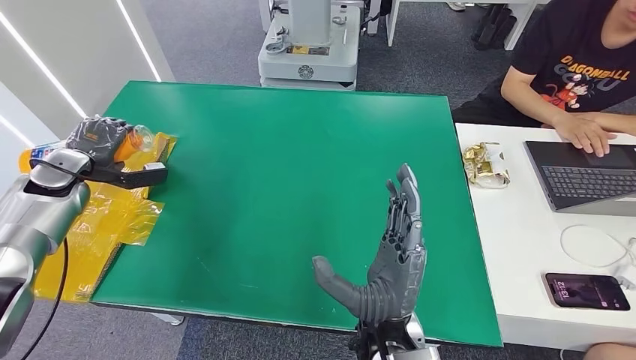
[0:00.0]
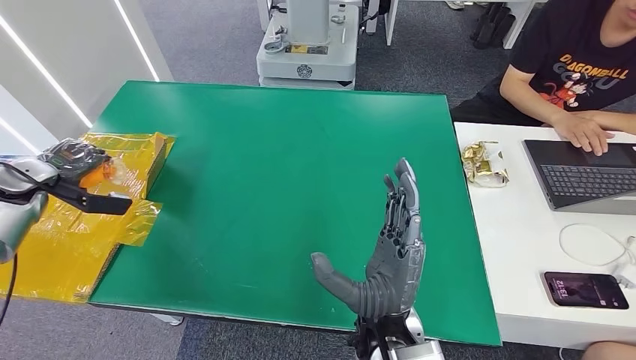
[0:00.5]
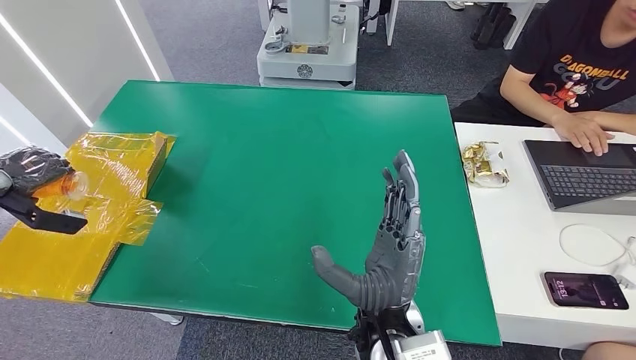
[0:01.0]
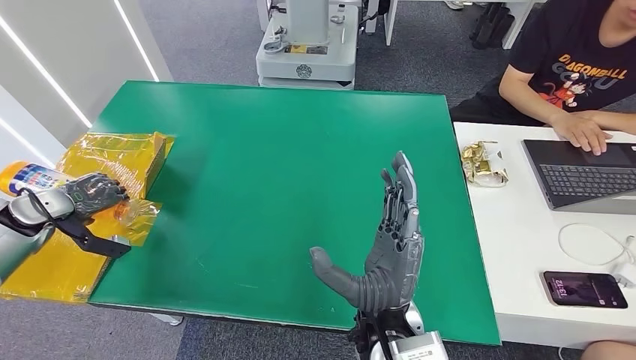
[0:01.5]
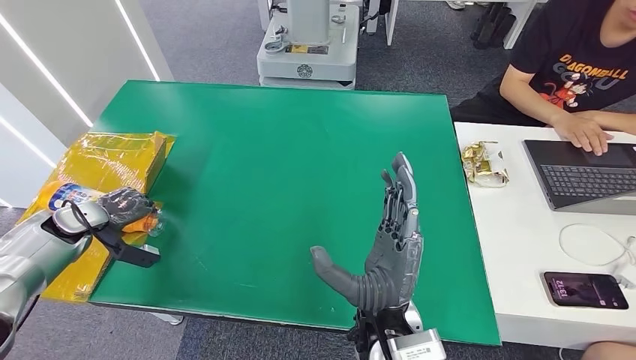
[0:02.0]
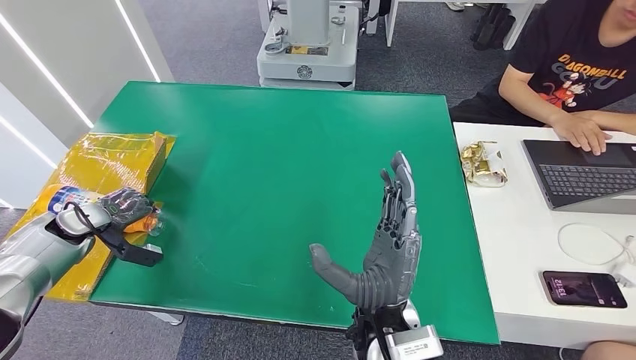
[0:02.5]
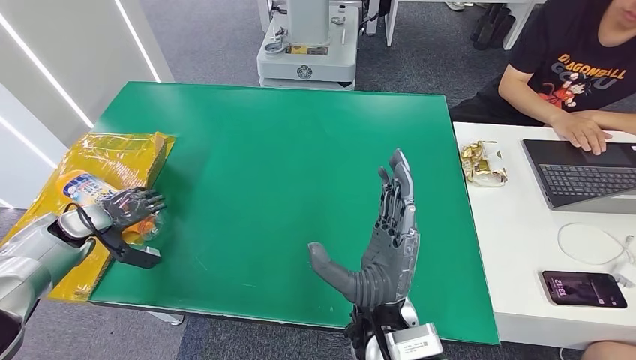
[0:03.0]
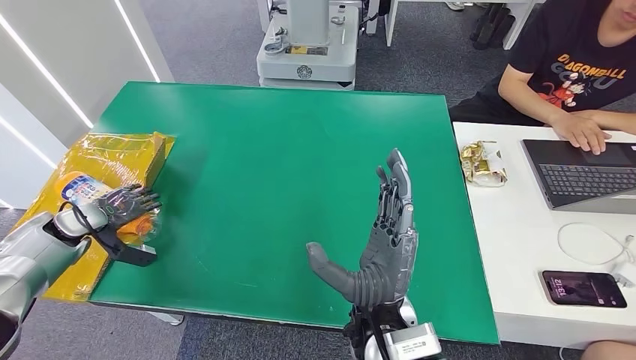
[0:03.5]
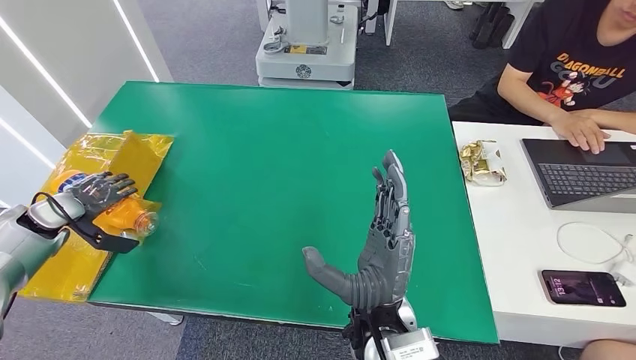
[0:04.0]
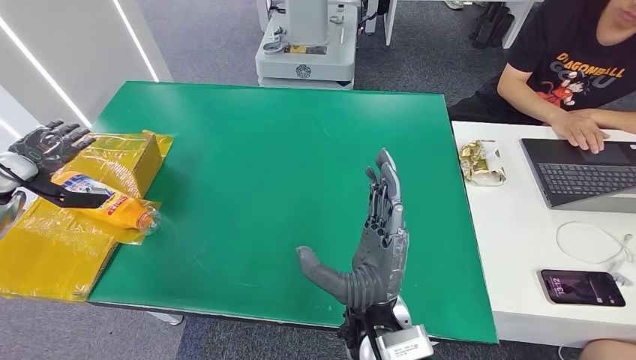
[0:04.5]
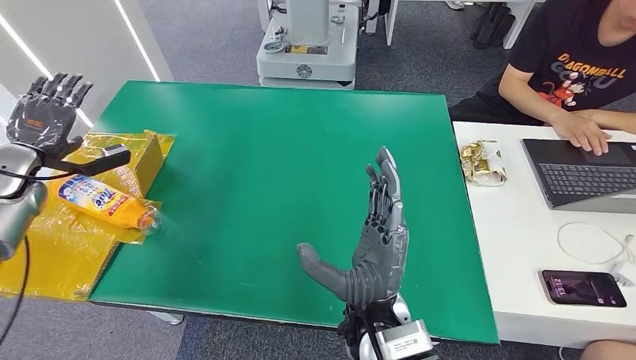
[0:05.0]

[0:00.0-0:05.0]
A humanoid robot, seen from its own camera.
Step, 0:00.0 to 0:05.0: Turn the bottle to the front side.
0:00.0 to 0:02.5: The left hand travels downward and backward by roughly 10 cm.
0:02.5 to 0:05.0: The left hand moves upward, some 10 cm.

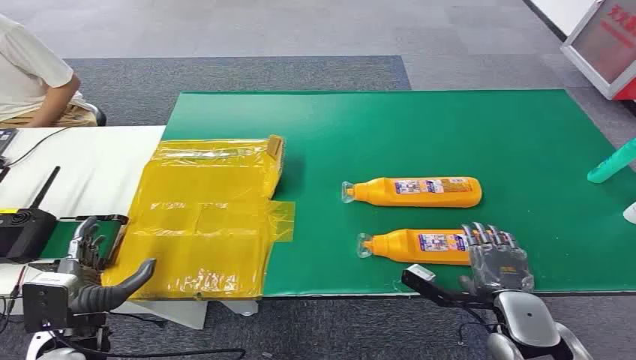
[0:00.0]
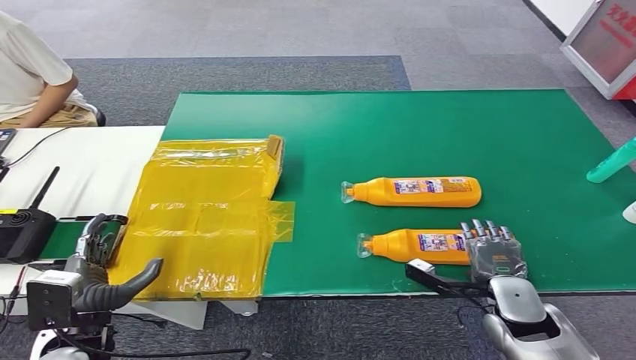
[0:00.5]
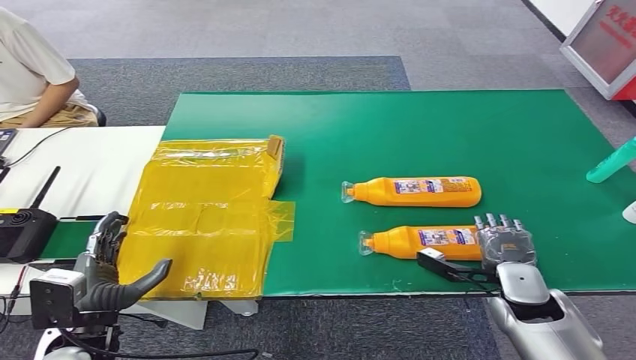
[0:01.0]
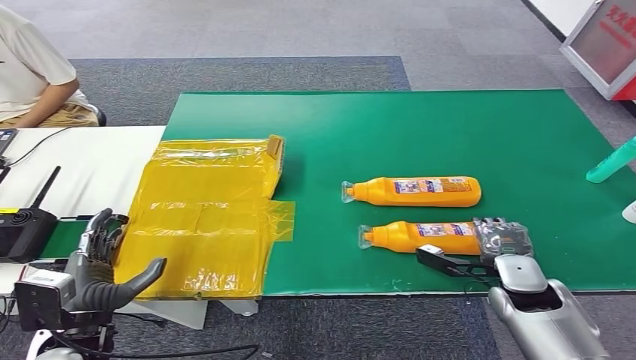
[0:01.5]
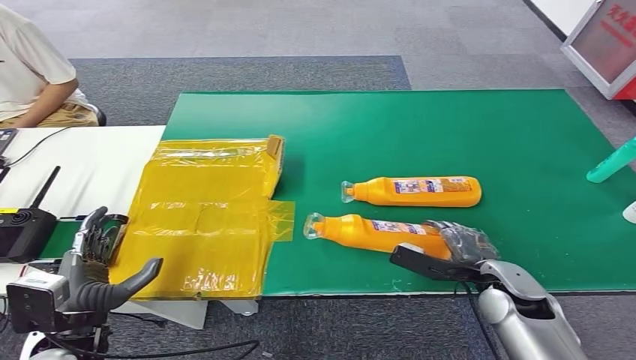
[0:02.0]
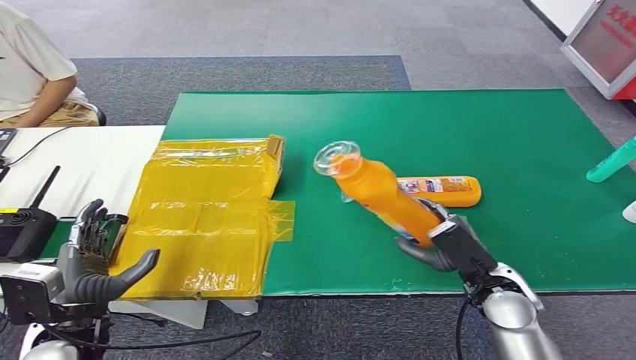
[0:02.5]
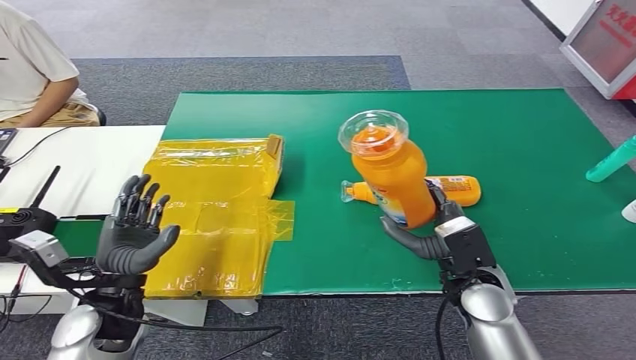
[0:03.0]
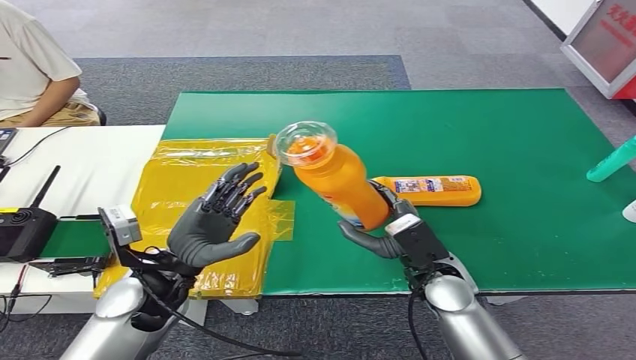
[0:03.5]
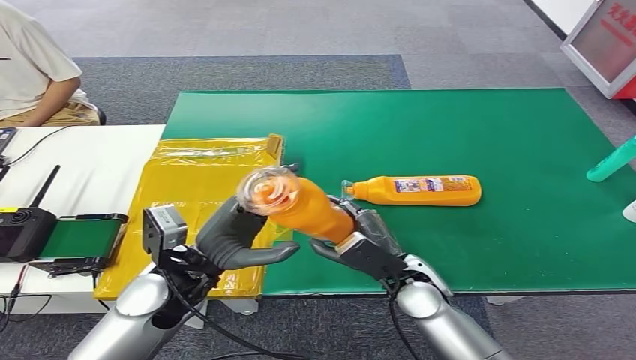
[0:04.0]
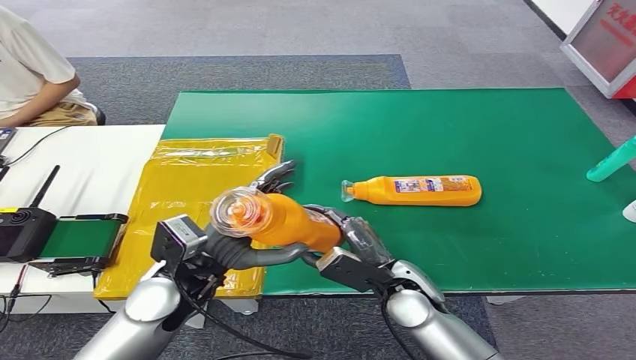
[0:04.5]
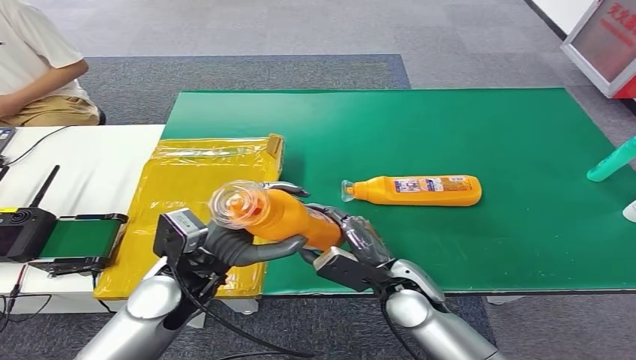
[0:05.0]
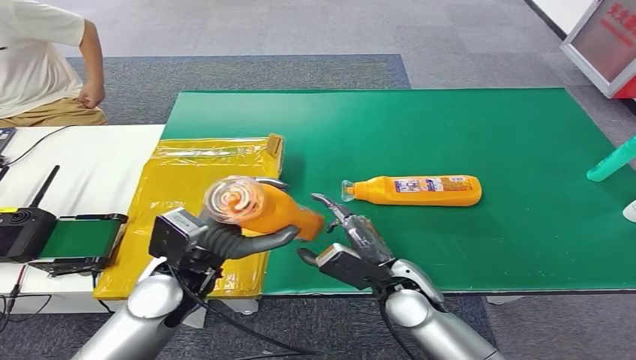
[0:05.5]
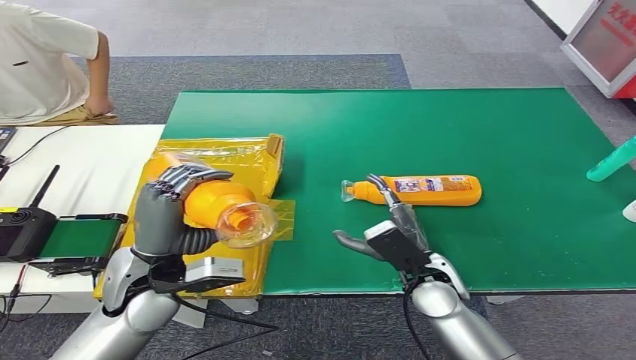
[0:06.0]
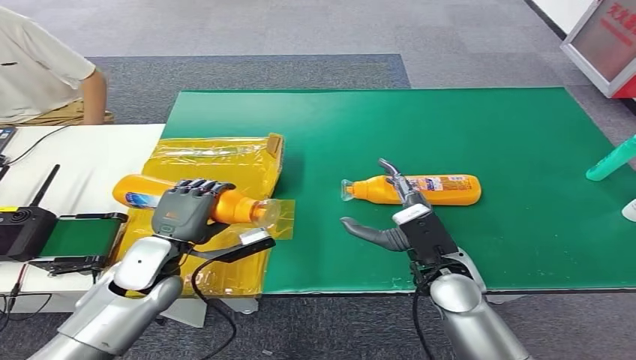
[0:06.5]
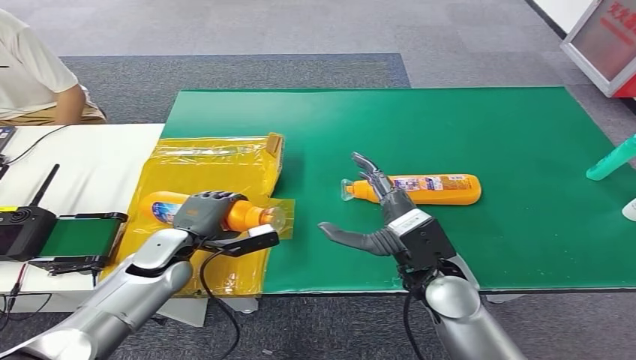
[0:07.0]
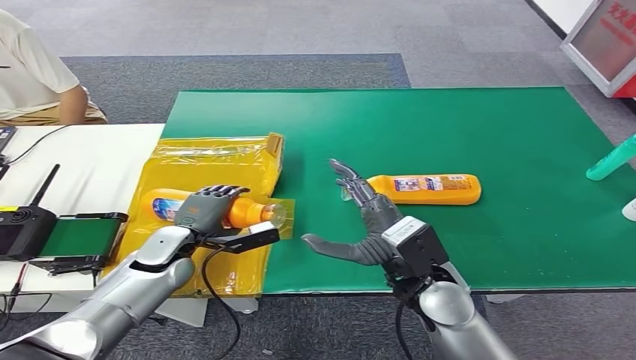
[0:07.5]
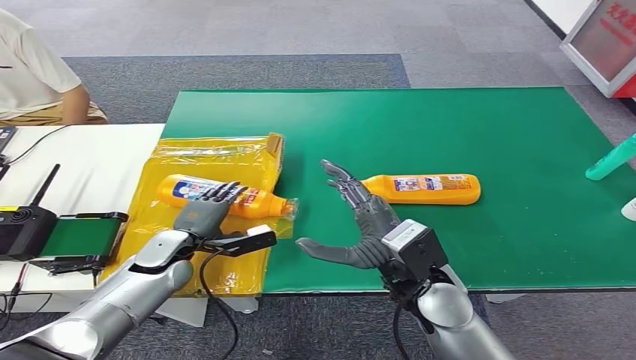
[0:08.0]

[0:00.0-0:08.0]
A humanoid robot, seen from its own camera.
Step, 0:00.0 to 0:02.0: Pick up the bottle from the table.
Step, 0:02.5 to 0:08.0: Turn the bottle to the front side.
0:06.0 to 0:08.0: The left hand is displaced downward and forward by roughly 15 cm. Meanwhile the right hand travels upward by roughly 10 cm.
